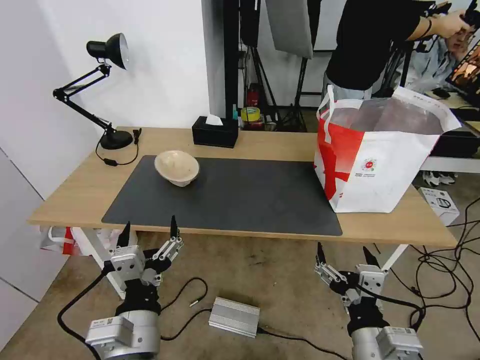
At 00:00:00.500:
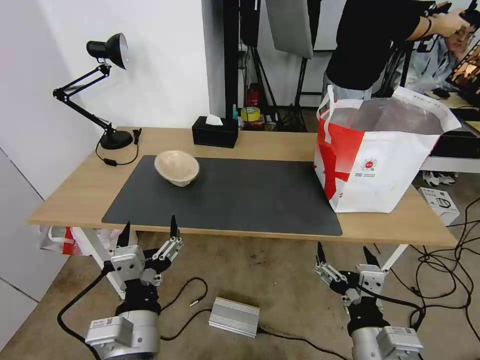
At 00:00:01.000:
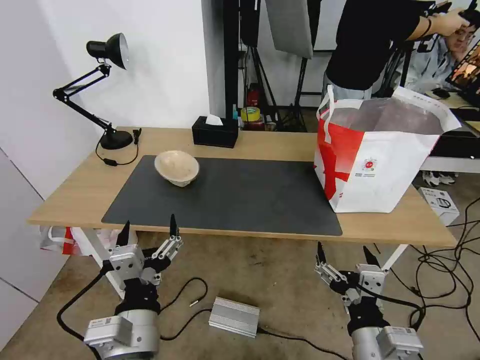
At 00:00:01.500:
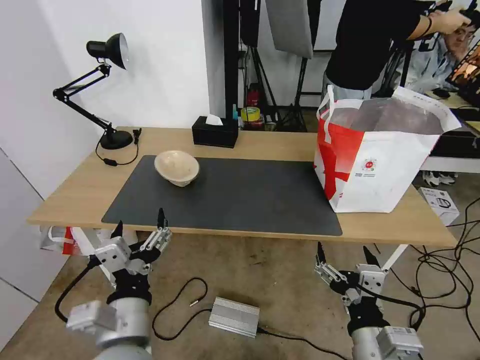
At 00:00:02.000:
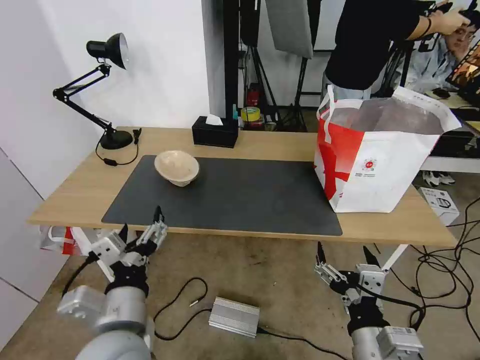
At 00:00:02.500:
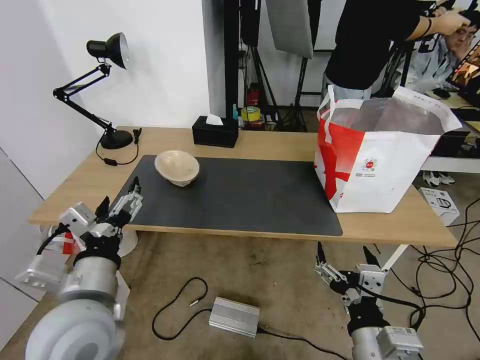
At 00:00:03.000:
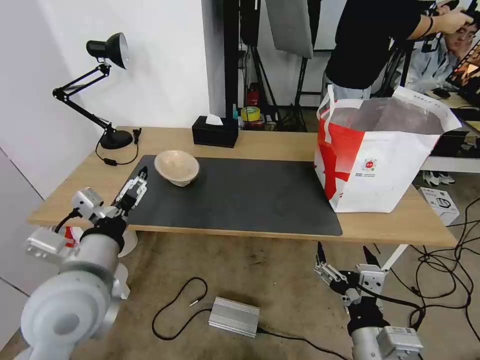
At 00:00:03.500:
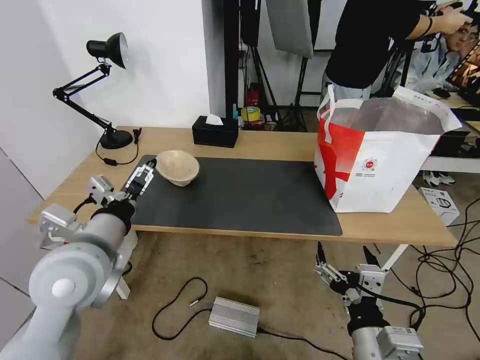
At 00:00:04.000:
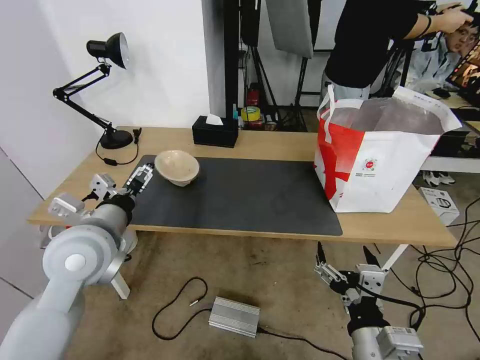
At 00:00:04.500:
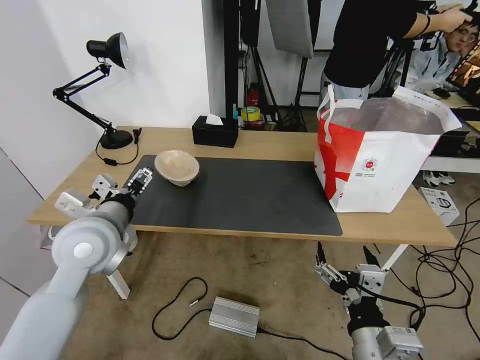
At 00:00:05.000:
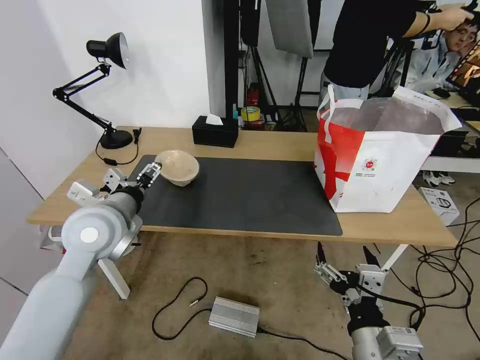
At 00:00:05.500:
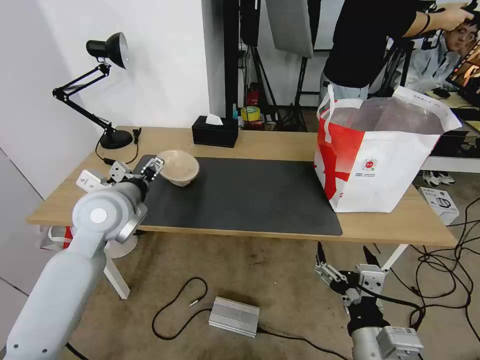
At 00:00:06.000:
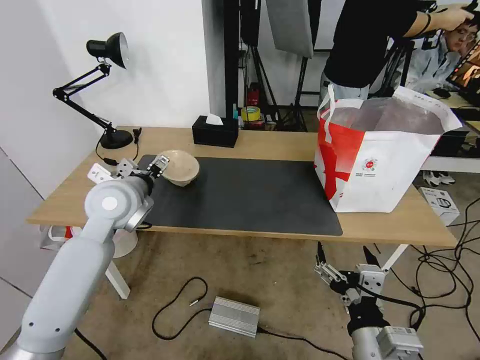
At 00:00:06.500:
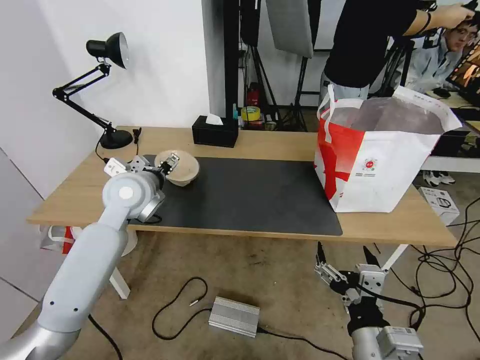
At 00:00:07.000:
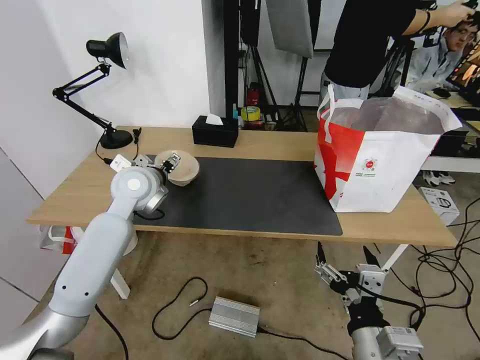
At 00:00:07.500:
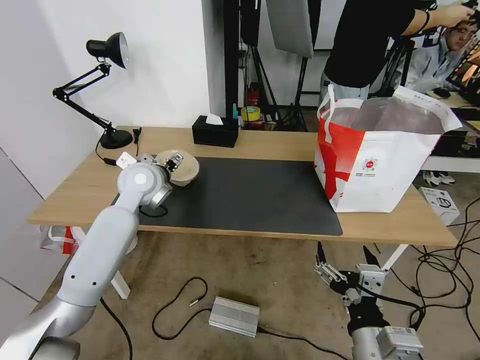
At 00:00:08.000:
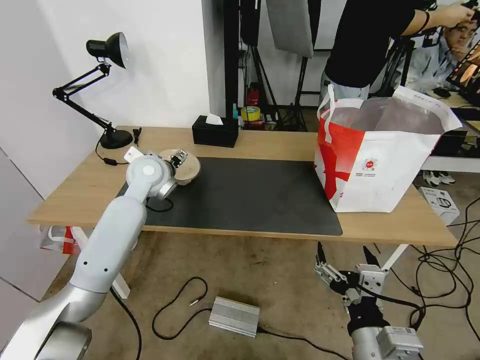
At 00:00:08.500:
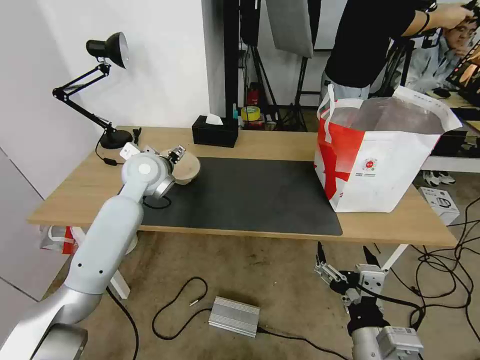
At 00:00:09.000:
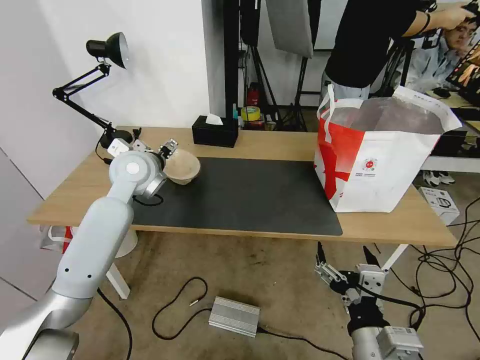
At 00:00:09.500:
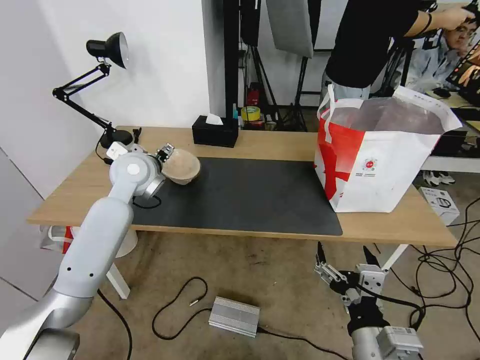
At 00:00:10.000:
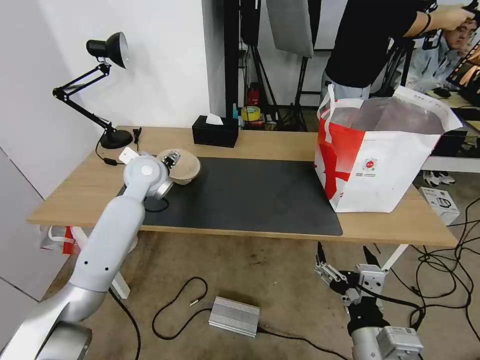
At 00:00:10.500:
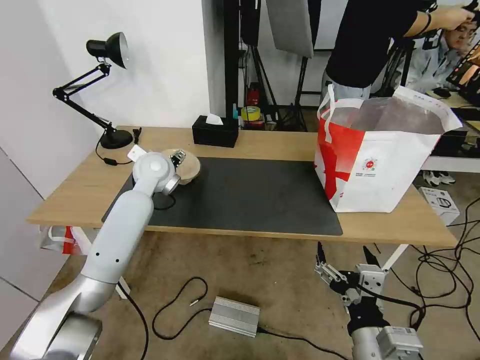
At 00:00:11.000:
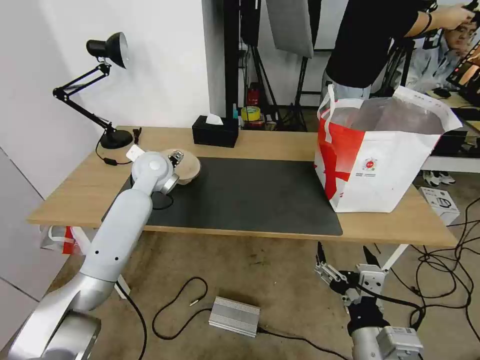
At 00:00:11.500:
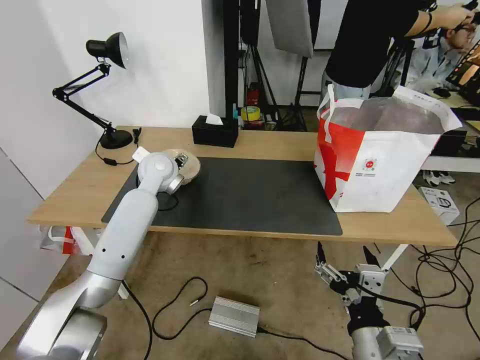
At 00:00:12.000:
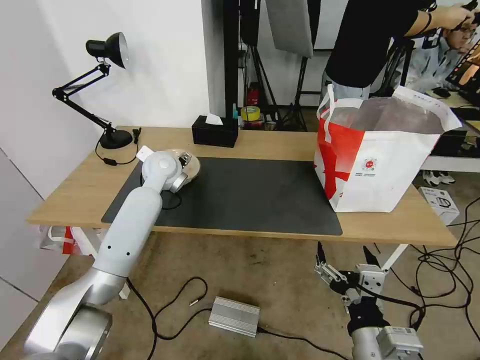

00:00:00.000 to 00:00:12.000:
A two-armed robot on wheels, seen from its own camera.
Task of the whole recording: Pick up the trash from the table and place it into the takeout bag.
00:00:02.000 to 00:00:04.000: The left gripper is displaced forward, to the left and upward by roughly 15 cm.
00:00:04.000 to 00:00:06.000: The left gripper travels forward by some 10 cm.
00:00:06.000 to 00:00:08.000: The left gripper is displaced forward by some 10 cm.
00:00:08.000 to 00:00:12.000: The grippers move only a little.

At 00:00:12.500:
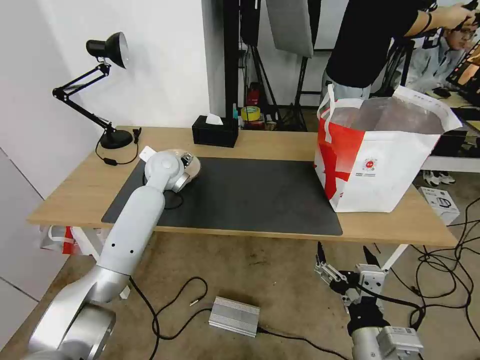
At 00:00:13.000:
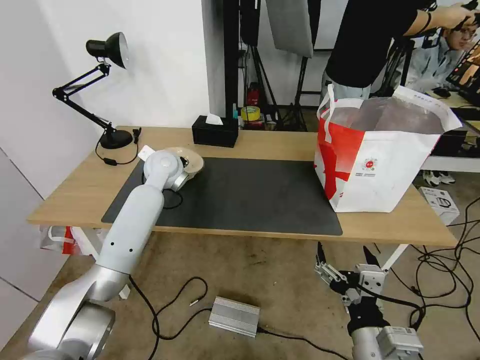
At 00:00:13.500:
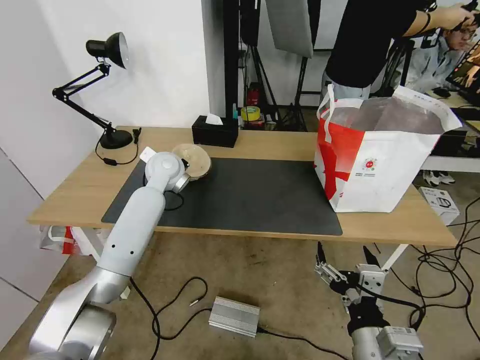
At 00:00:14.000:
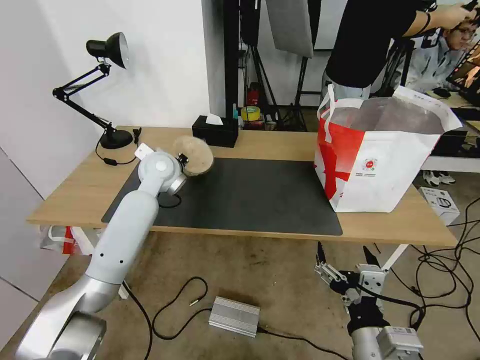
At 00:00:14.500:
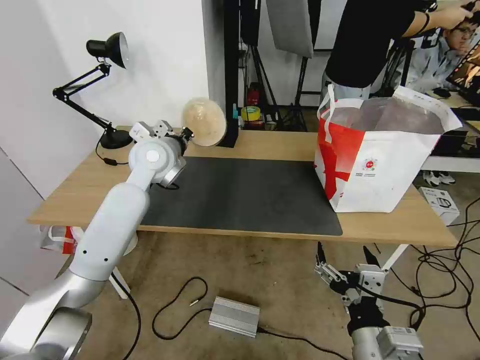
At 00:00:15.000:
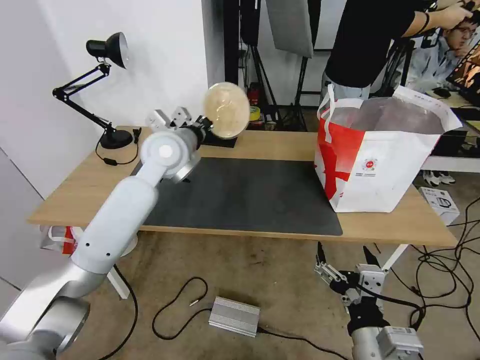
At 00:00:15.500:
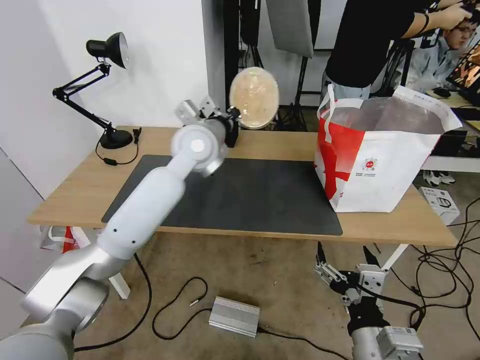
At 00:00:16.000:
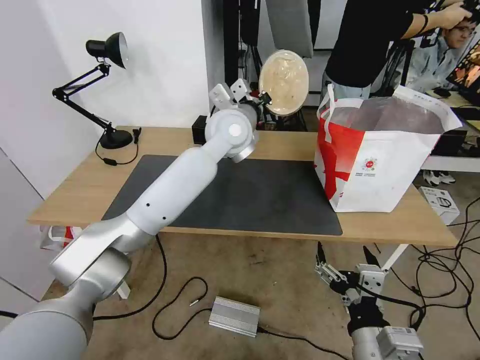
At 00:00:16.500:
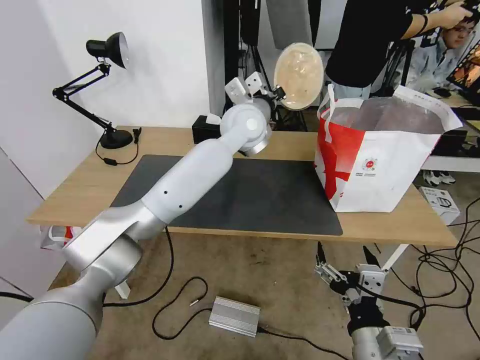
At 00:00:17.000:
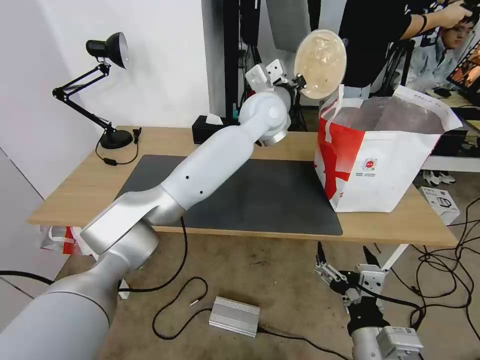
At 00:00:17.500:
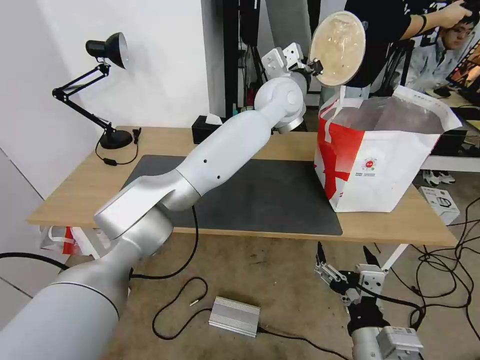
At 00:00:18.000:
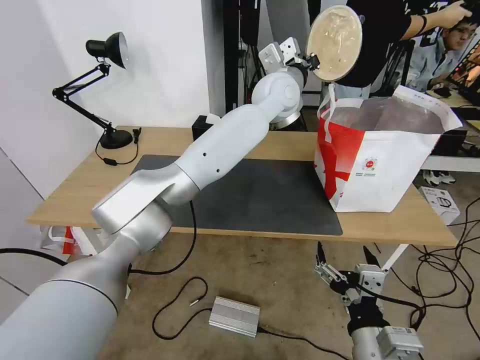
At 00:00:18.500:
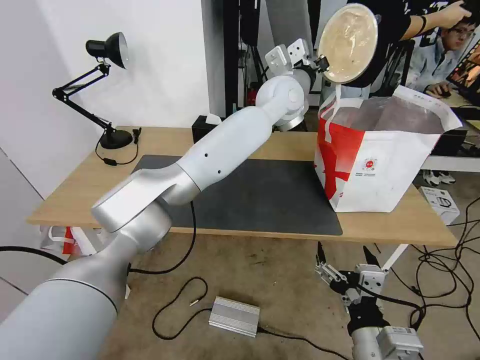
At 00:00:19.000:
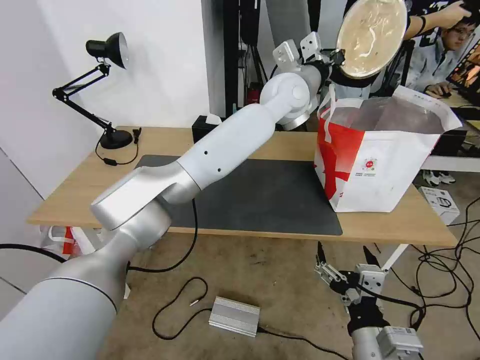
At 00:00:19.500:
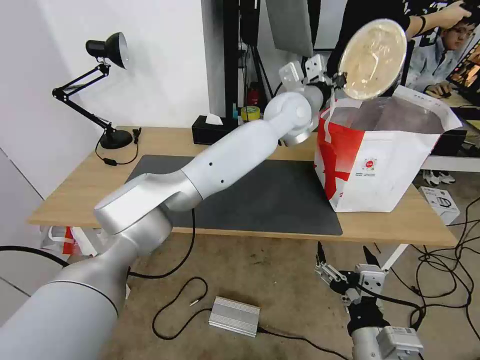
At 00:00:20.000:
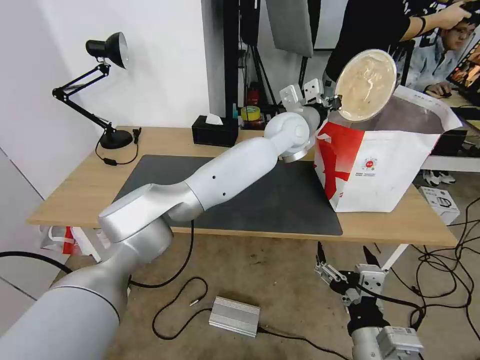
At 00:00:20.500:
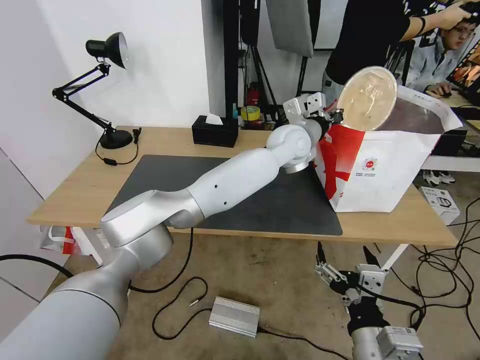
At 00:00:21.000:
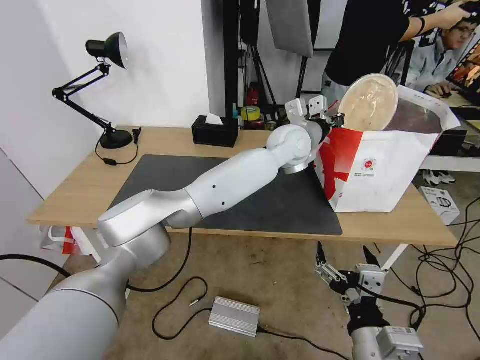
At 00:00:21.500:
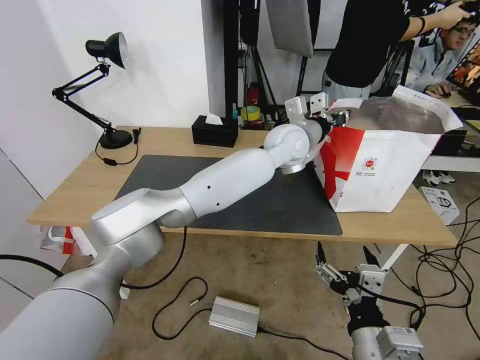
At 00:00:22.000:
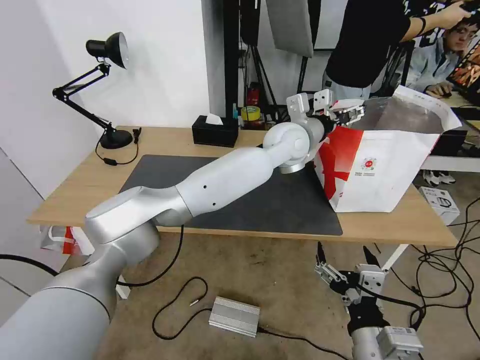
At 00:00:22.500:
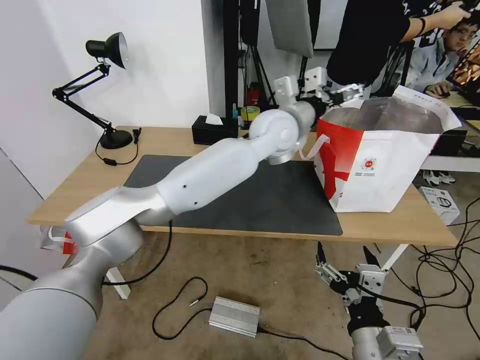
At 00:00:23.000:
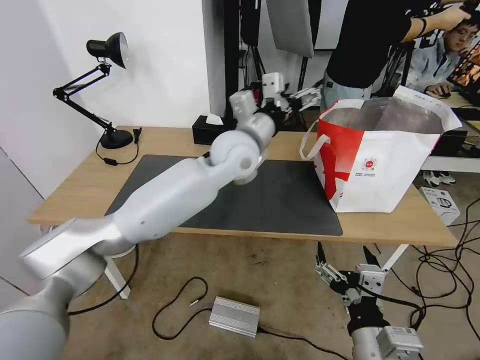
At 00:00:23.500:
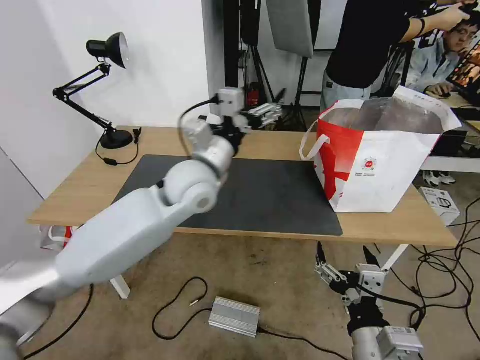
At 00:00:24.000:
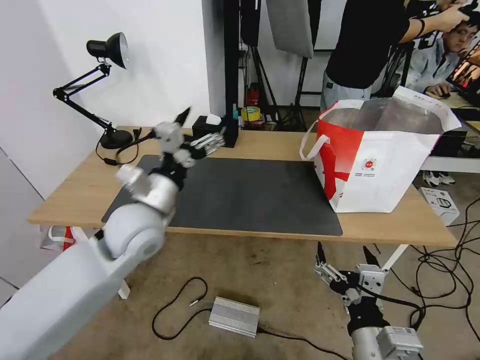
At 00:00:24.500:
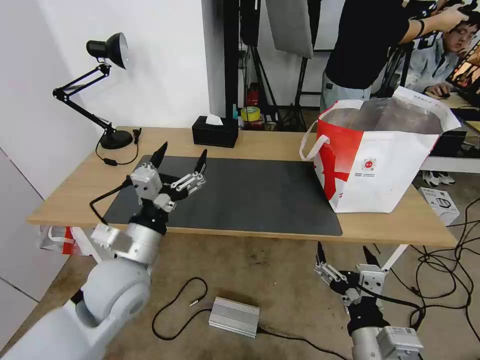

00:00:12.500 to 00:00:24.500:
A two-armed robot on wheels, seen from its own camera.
Task of the whole recording: Pick up the trash from the table and place it into the takeout bag.
00:00:12.500 to 00:00:14.500: The left gripper is displaced upward by some 5 cm, and closes.
00:00:14.500 to 00:00:16.500: The left gripper shifts approximately 20 cm to the right.
00:00:16.500 to 00:00:18.500: The left gripper heads to the right, covering roughly 5 cm.
00:00:18.500 to 00:00:20.500: The left gripper travels downward by some 10 cm.
00:00:20.500 to 00:00:22.500: The left gripper ends up roughly 5 cm from where it was, and opens.
00:00:22.500 to 00:00:24.500: The left gripper goes about 40 cm to the left, backward and downward.

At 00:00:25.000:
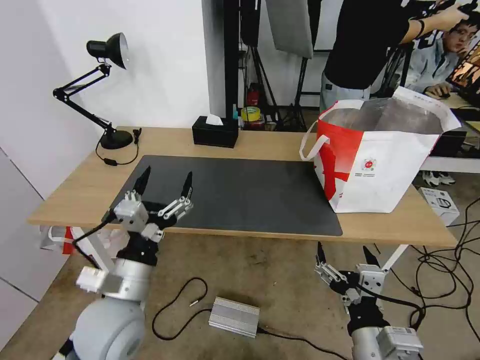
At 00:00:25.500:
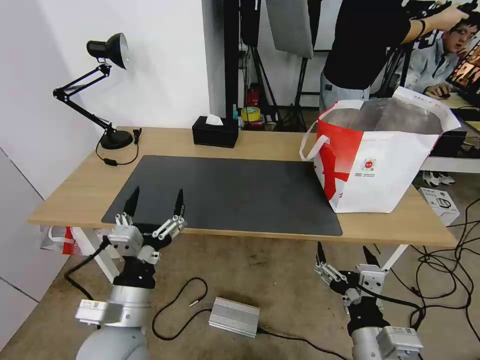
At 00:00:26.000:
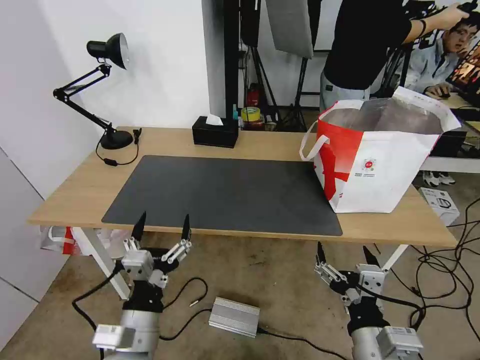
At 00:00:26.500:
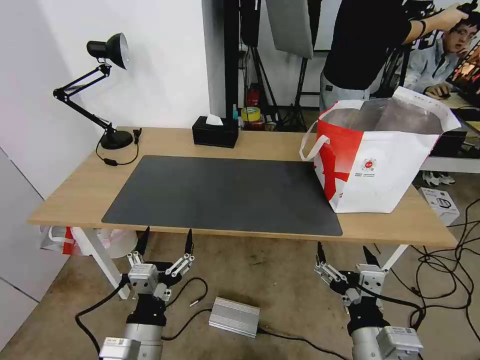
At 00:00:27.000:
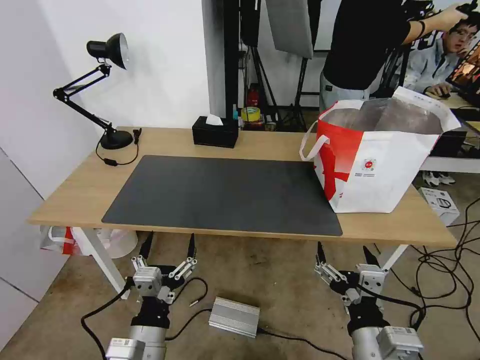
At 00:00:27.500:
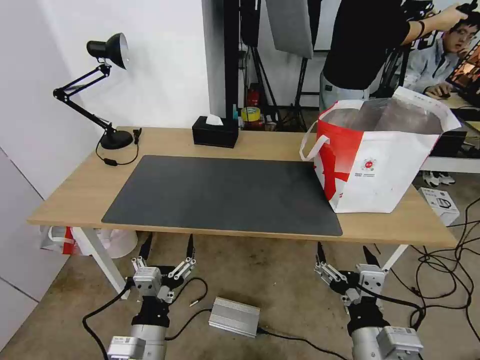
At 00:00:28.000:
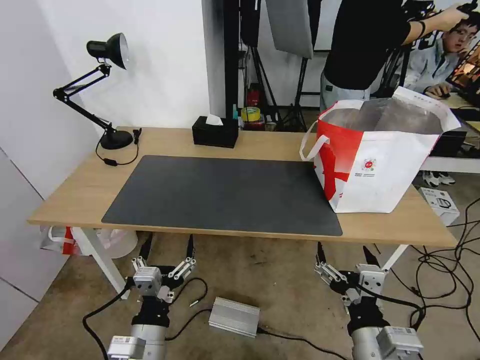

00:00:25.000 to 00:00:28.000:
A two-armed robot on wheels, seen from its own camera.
Task of the whole recording: Pick up the trash from the table and place it into the takeout bag.
00:00:25.000 to 00:00:26.500: The left gripper is displaced backward and downward by approximately 10 cm.
00:00:26.500 to 00:00:28.000: There are only small adjustments of the grippers.
